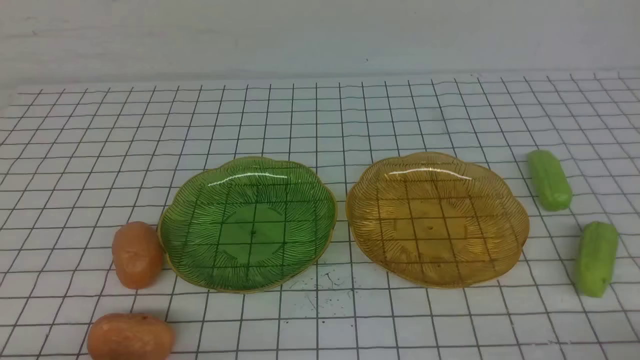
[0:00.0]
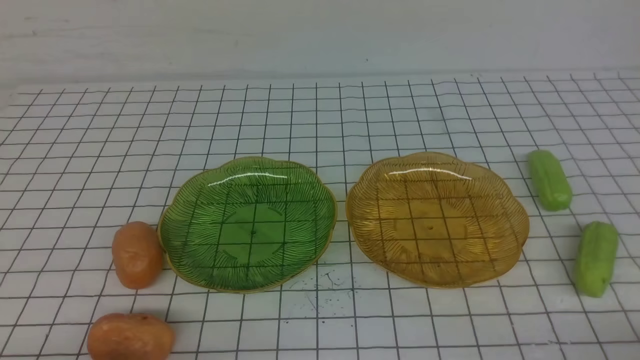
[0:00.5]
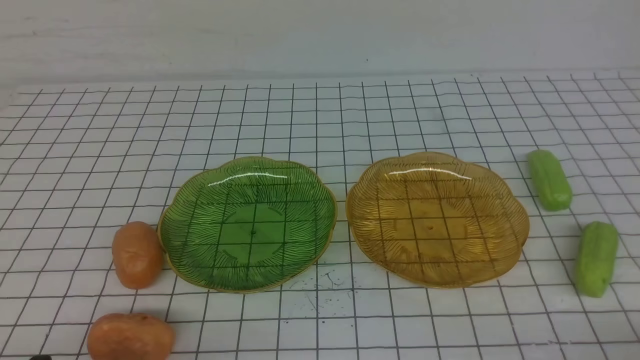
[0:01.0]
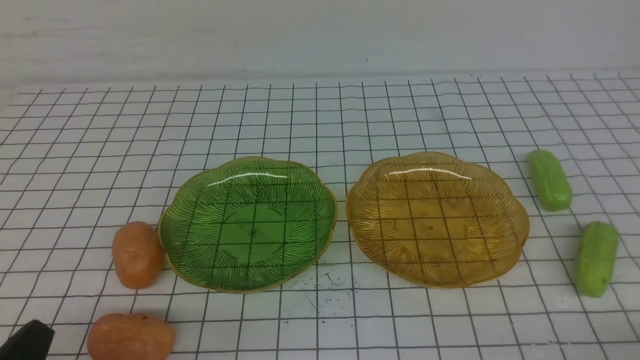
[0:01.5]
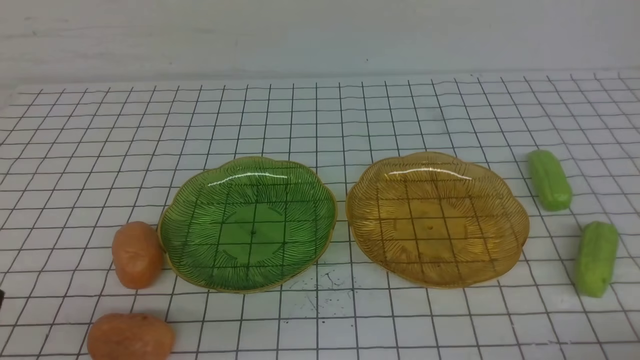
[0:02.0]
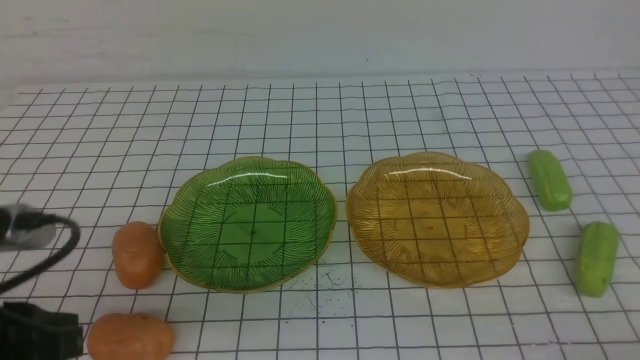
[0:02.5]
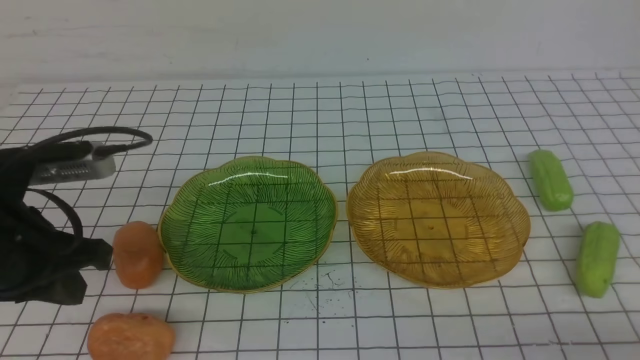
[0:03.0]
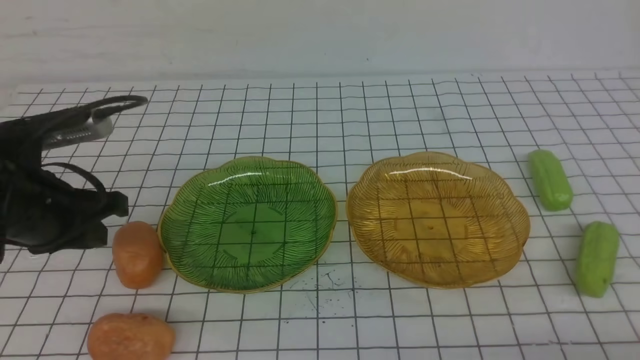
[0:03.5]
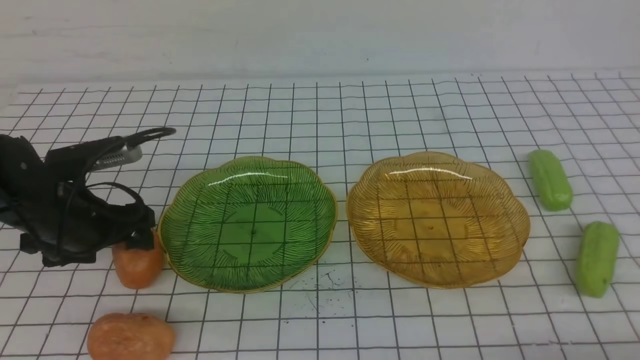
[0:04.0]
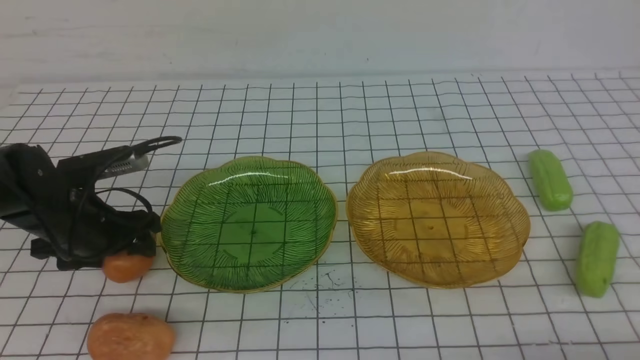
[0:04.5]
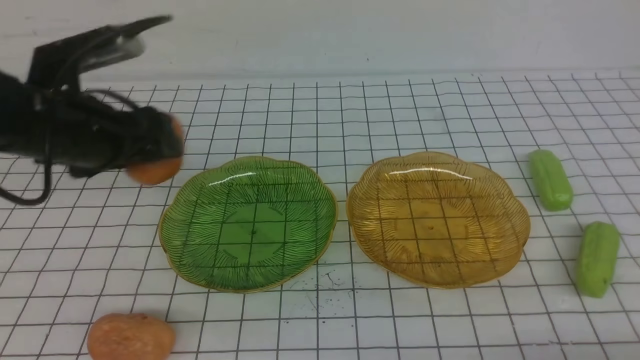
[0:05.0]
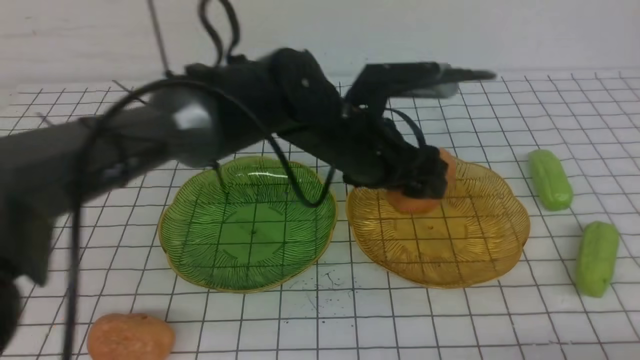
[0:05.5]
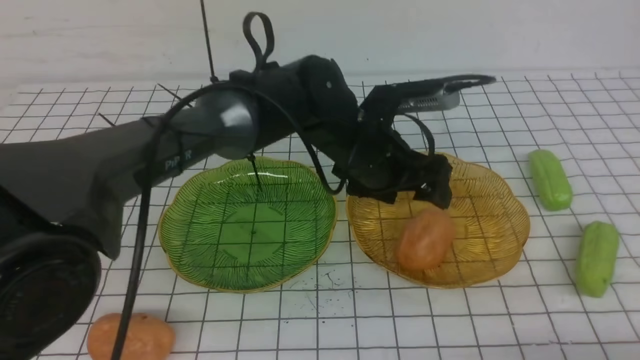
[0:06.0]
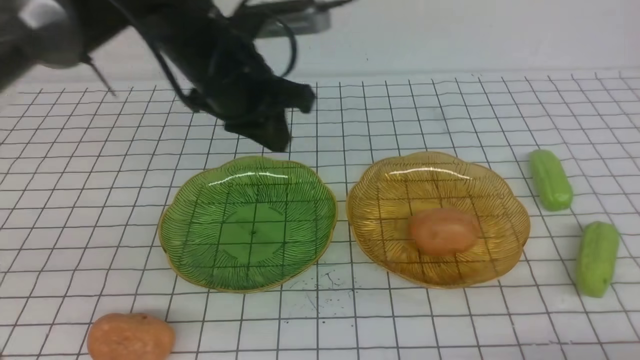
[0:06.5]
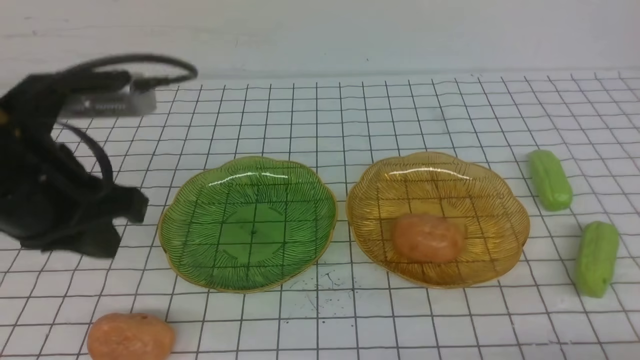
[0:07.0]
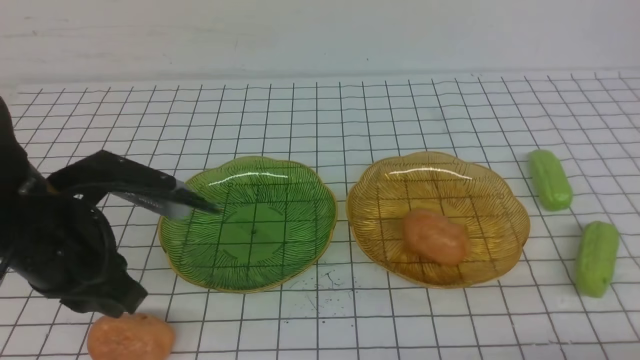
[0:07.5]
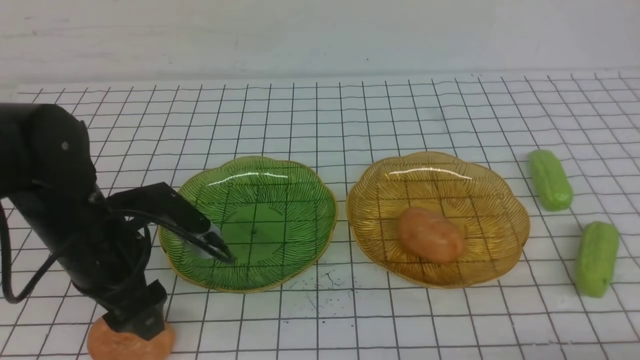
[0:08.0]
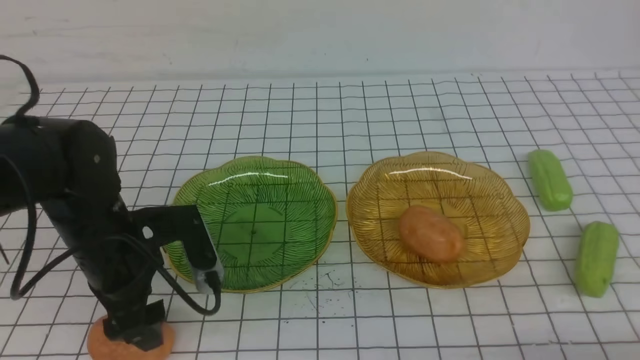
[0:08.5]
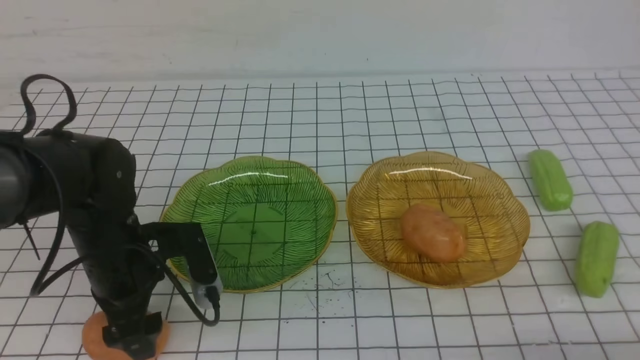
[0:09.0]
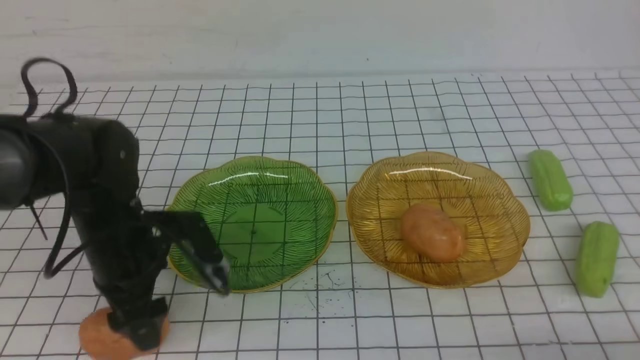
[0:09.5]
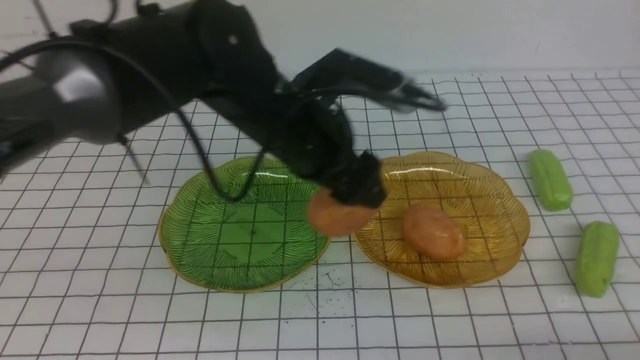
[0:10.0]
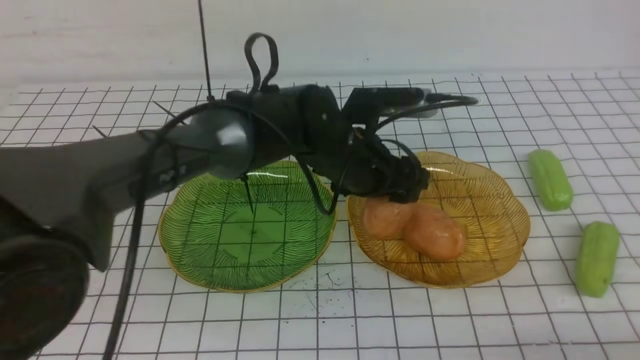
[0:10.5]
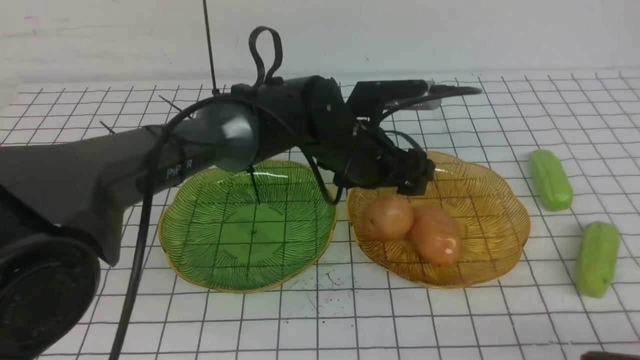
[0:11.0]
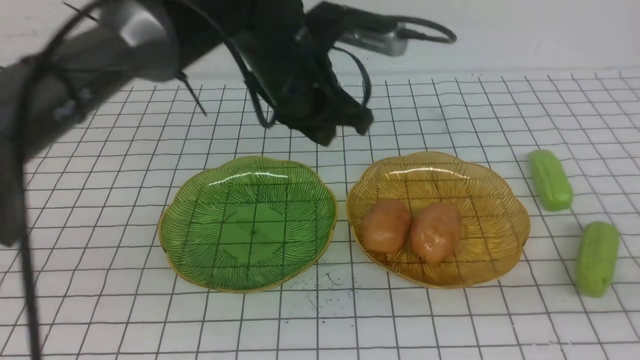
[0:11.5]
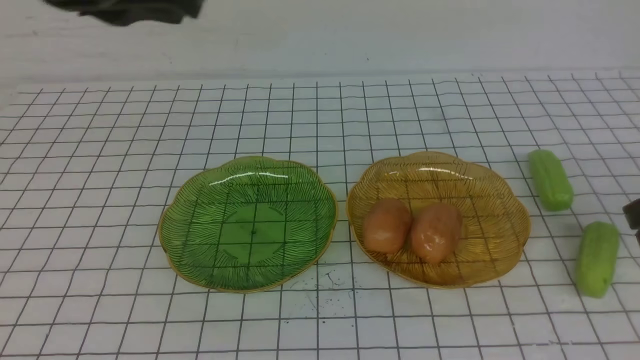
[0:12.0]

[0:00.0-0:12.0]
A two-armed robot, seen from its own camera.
Step, 0:00.0 to 0:06.0: Grab a potato with your left arm and put it on the right plate.
Step, 0:06.5 to 0:10.5: Grab a potato with your left arm and put it on the right plate.
0:02.0 to 0:04.0: The left gripper is displaced forward by roughly 25 cm, and opens.
0:04.0 to 0:06.0: The left gripper heads to the right, covering about 30 cm.
0:06.0 to 0:08.0: The left gripper travels to the left and backward by approximately 25 cm, and closes and opens again.
0:08.0 to 0:10.0: The left gripper travels to the right and forward by approximately 20 cm.
0:10.0 to 0:12.0: The right gripper moves forward, some 20 cm; the left gripper travels upward, backward and to the left by about 25 cm, and closes.

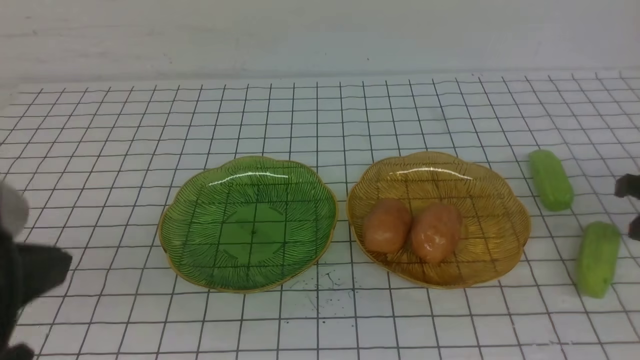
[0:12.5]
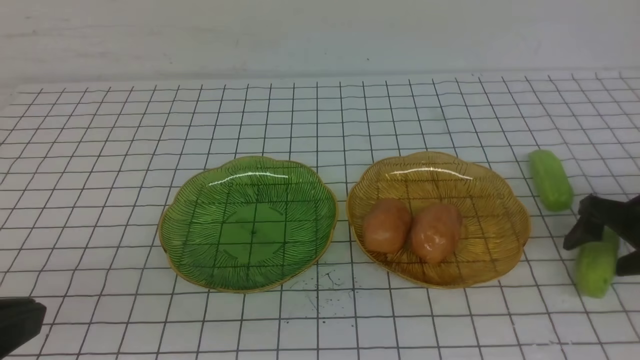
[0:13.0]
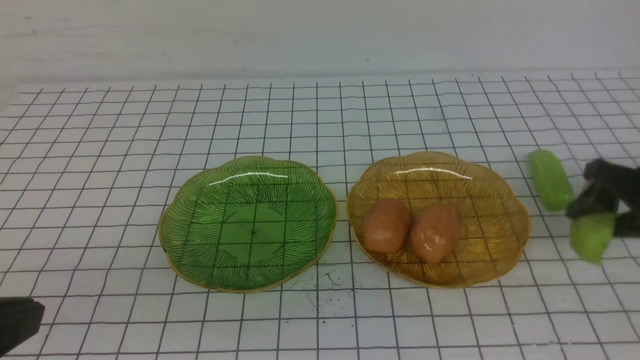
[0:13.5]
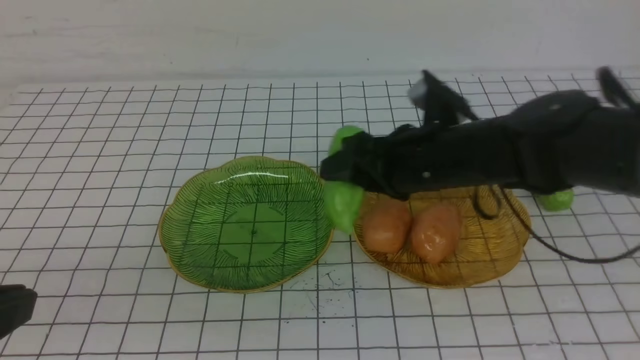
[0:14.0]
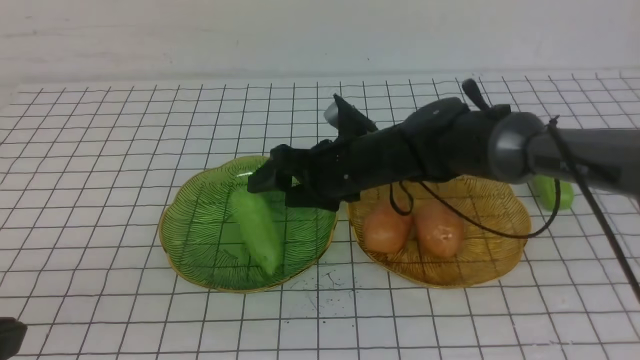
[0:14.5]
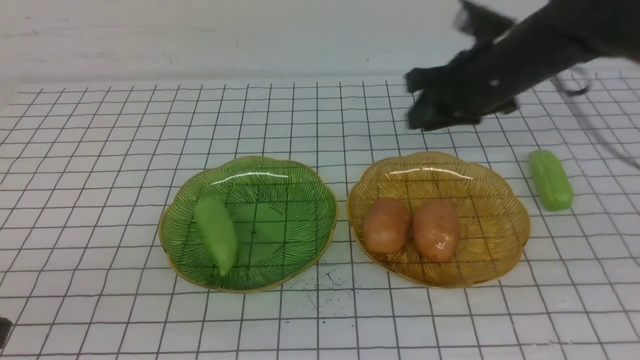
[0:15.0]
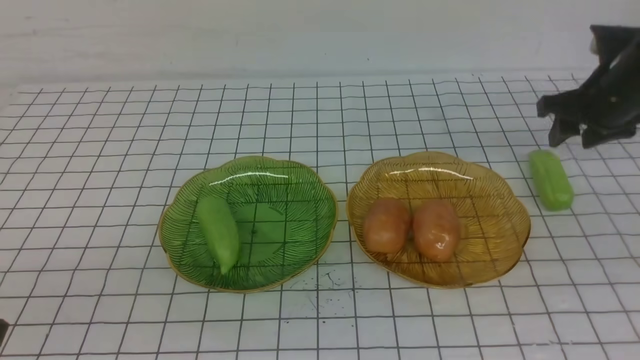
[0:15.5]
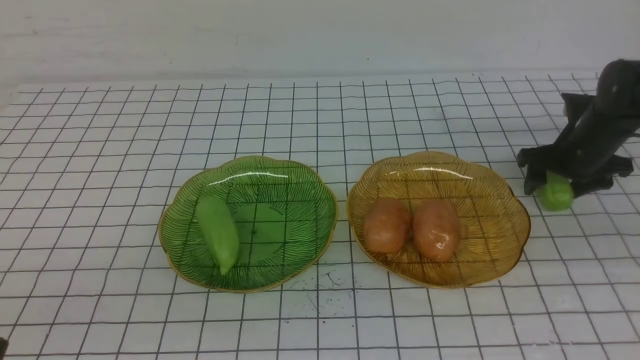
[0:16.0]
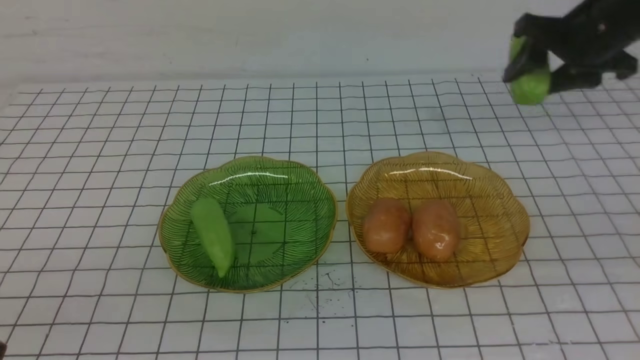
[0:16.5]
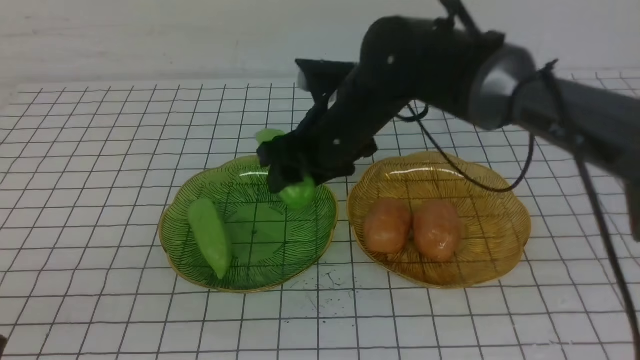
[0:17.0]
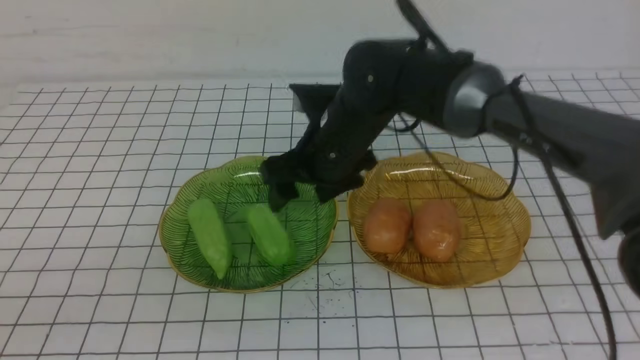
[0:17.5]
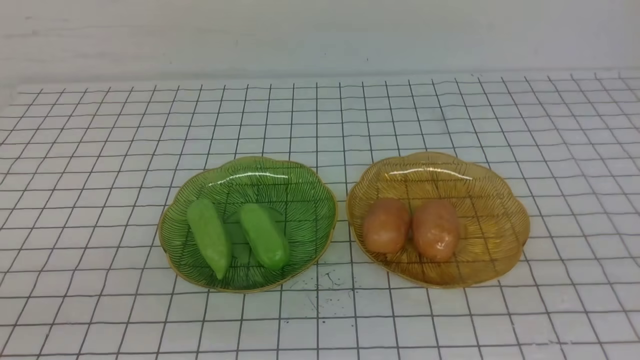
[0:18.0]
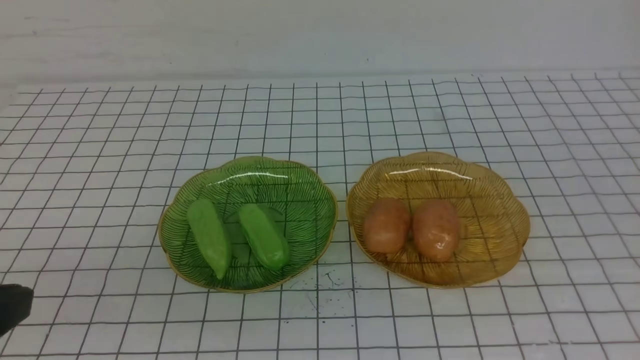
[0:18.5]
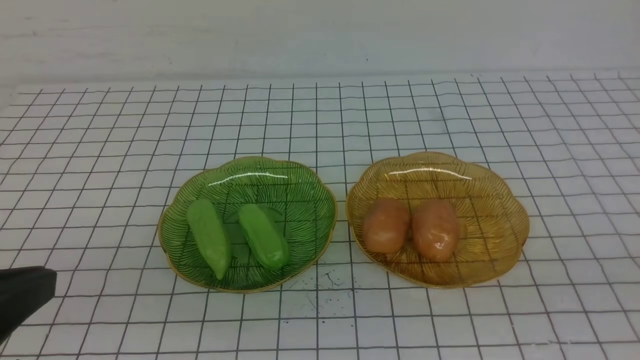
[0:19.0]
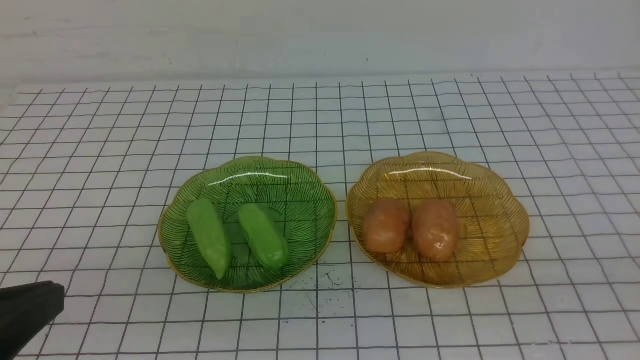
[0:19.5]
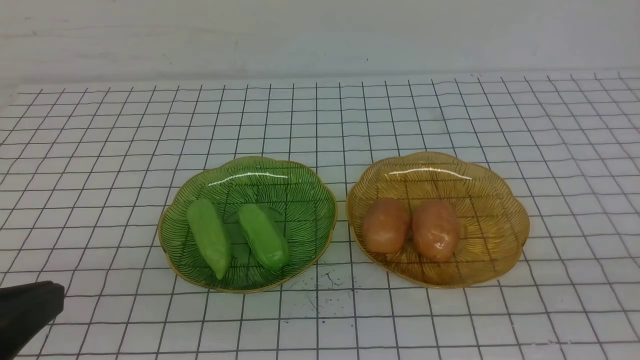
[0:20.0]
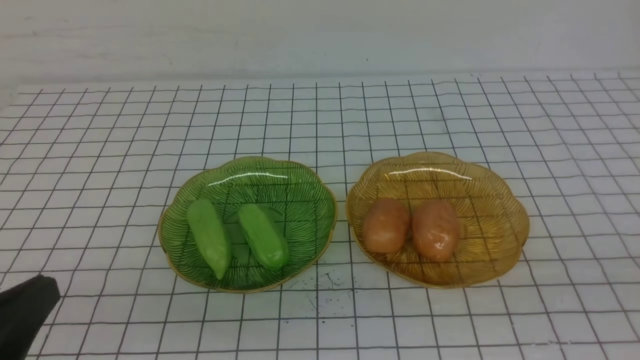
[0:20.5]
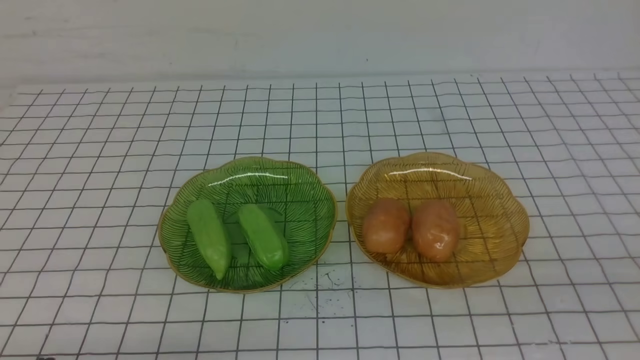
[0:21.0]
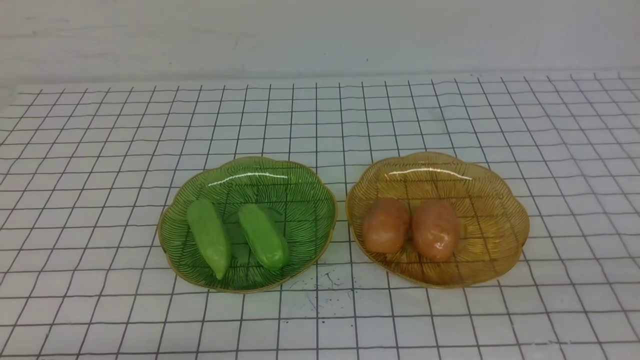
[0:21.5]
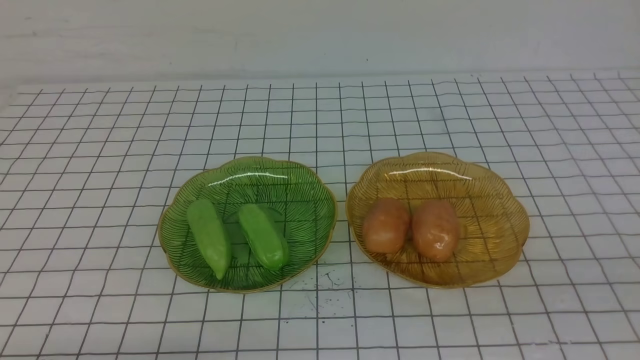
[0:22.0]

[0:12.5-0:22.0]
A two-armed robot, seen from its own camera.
Step, 0:12.5 to 0:14.5: Grab the chayote with your right arm and put it on the left plate.
Step, 0:15.0 to 0:17.0: Grab the chayote with your right arm and put it on the left plate.
0:12.5 to 0:14.5: The right gripper goes approximately 35 cm to the left, and opens up.
0:14.5 to 0:16.5: The right gripper heads to the right and upward, covering about 20 cm, and closes and opens again.
0:16.5 to 0:18.0: The right gripper is displaced upward and backward by roughly 25 cm, and closes.
0:20.0 to 0:22.0: The left gripper travels downward by approximately 15 cm.
